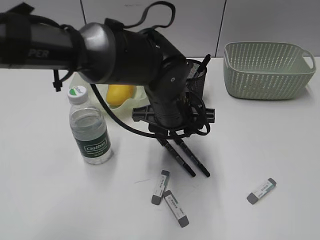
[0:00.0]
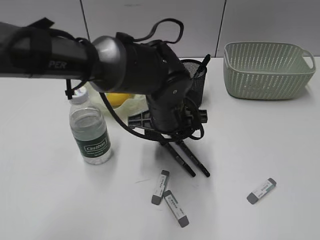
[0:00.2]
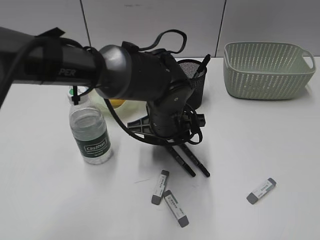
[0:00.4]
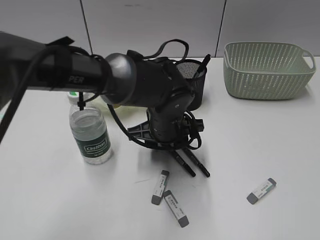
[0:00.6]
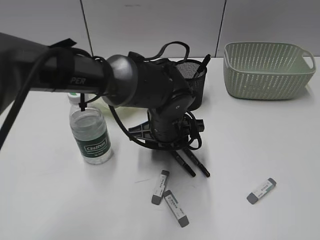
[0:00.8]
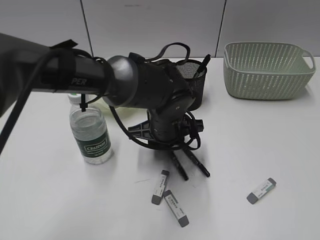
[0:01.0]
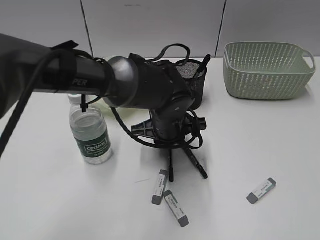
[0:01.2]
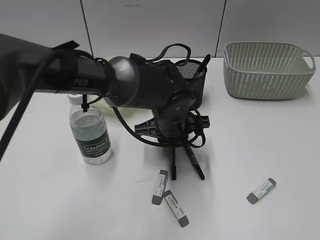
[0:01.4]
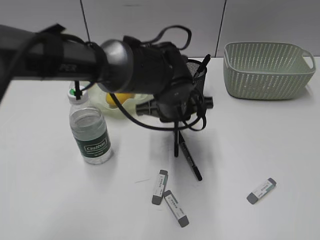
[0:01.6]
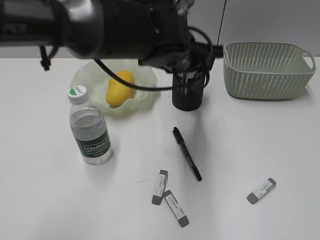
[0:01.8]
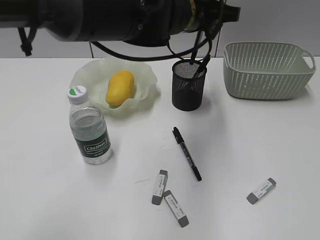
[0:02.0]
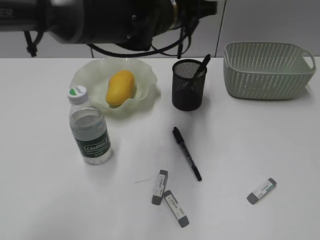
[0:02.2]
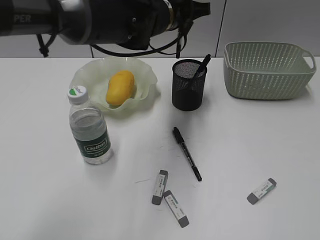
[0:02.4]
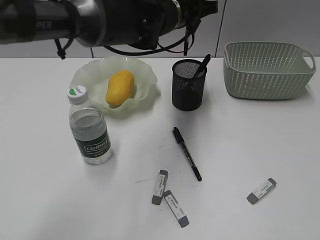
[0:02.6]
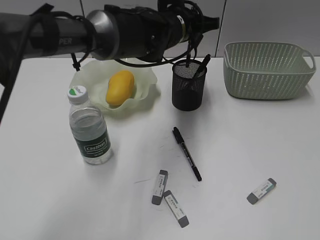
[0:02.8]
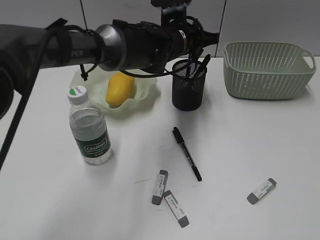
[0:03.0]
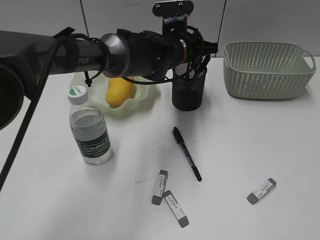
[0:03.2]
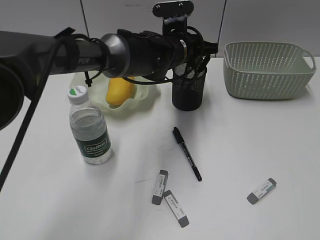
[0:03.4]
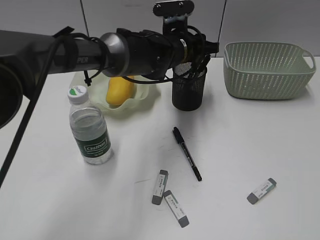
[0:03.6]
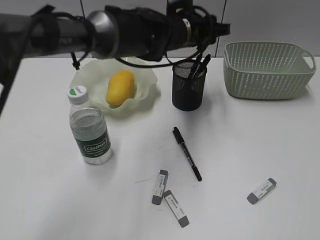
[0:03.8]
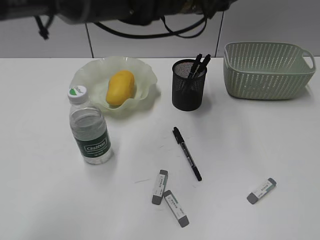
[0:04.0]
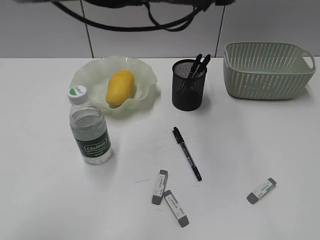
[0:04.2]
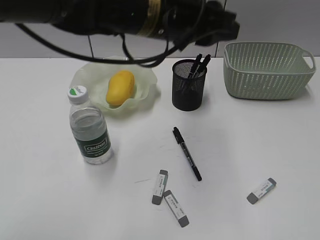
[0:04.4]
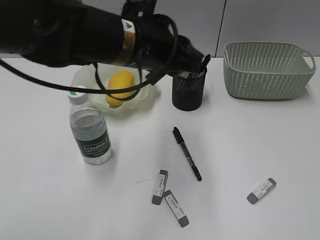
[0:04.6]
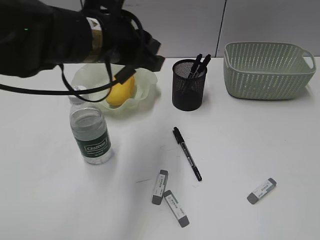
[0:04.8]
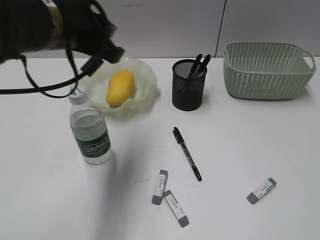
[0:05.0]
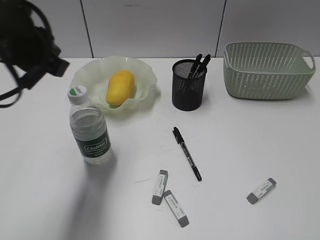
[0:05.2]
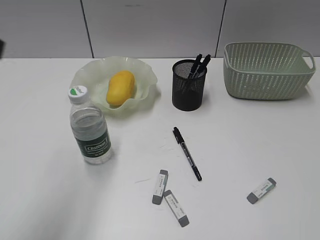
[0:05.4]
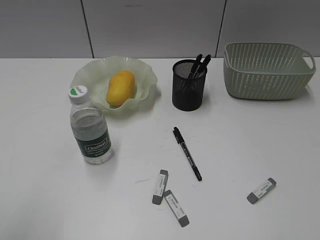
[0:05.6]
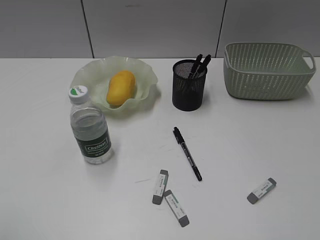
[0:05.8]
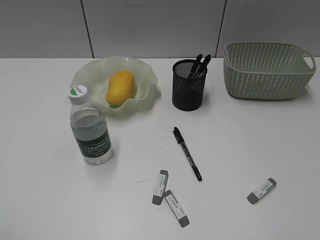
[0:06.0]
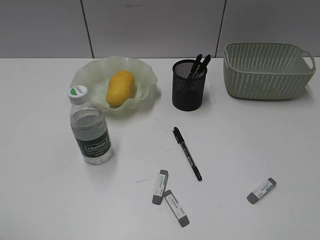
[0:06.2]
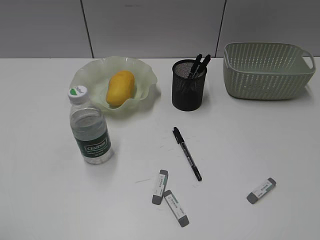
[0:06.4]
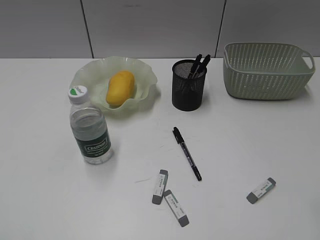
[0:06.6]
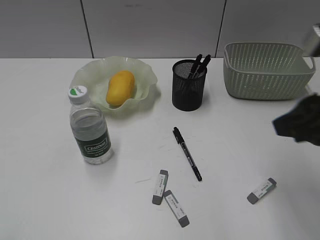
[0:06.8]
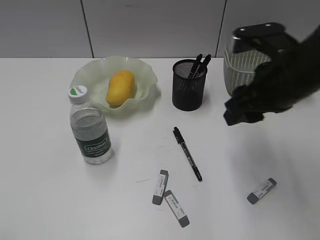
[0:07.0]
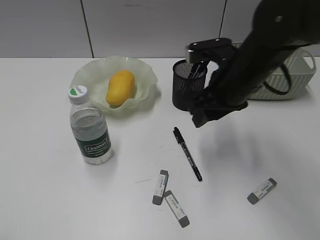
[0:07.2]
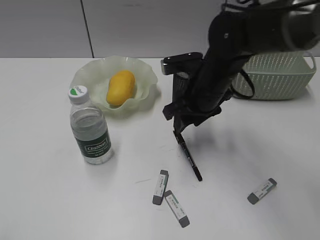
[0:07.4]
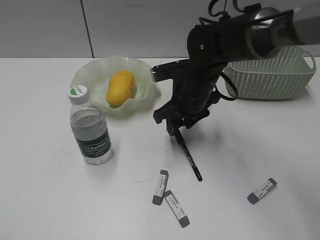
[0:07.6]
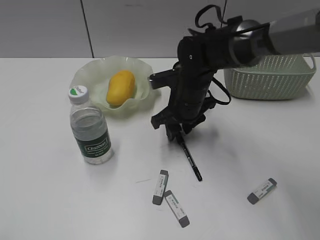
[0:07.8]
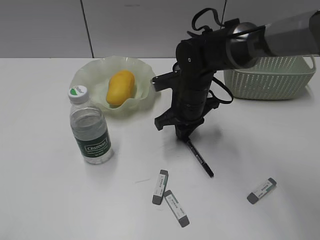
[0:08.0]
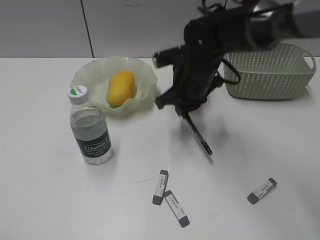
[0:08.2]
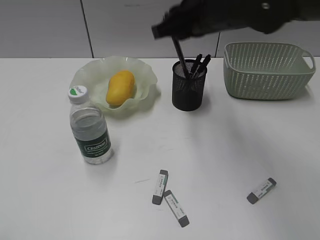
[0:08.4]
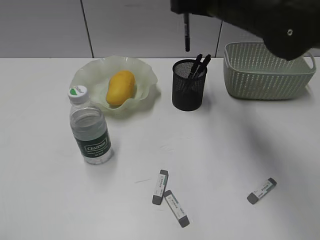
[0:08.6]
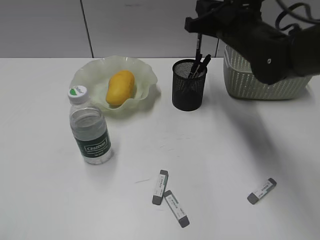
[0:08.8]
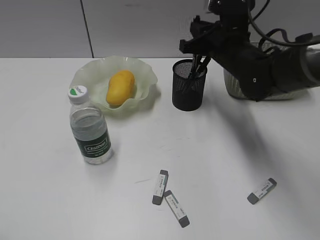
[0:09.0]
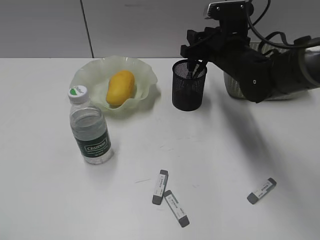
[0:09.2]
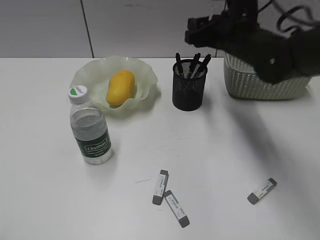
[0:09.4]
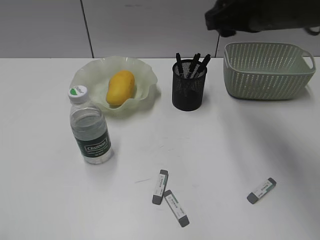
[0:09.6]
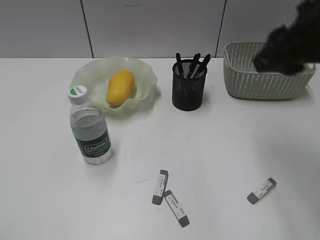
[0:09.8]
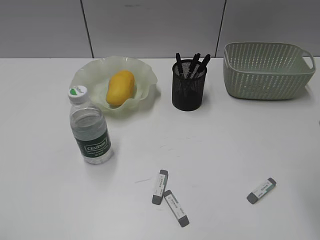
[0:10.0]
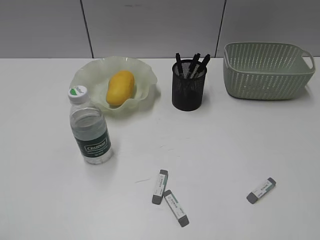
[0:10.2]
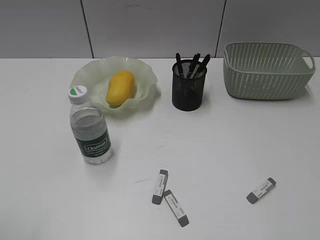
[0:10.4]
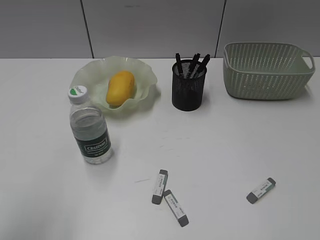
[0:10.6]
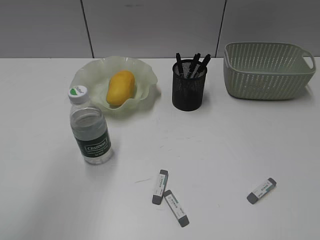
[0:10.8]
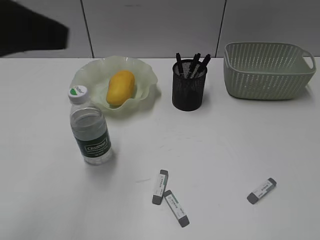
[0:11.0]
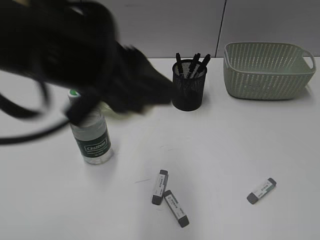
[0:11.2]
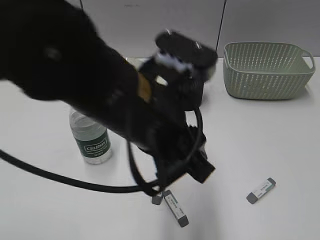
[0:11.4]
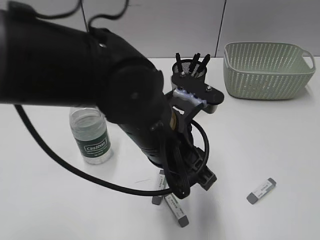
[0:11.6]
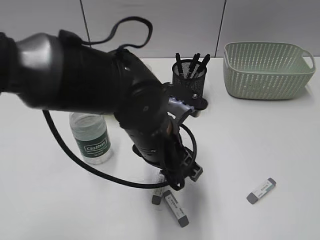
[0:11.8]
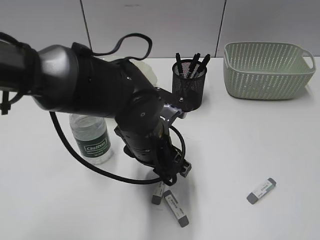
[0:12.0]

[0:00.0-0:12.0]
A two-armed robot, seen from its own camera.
Step, 0:01.4 to 0:03.6: Place the black pen in pen holder with left gripper.
Step, 0:03.8 to 0:08.0: Grasp the black pen with right gripper.
Step, 0:08.2 to 0:09.2: Place the black pen in pen holder with right gripper.
0:00.0 to 0:01.6: The left gripper closes its fingers.
0:01.6 to 0:03.0: The left gripper moves forward, some 10 cm, and reaches approximately 10 cm upward, then returns.
0:03.0 to 0:04.4: The left gripper heads backward and upward, covering some 15 cm.
0:04.4 to 0:06.0: The left gripper heads to the left and backward, covering roughly 40 cm, and opens its fingers.
0:06.0 to 0:07.6: The right gripper moves forward, to the left and downward, roughly 50 cm, and opens up.
0:07.6 to 0:09.0: The right gripper heads to the right, covering about 5 cm, moves some 15 cm upward and comes back, and closes.
0:09.0 to 0:10.4: The right gripper travels backward and to the right by roughly 40 cm, and opens up.
0:10.4 to 0:12.0: The left gripper is displaced to the right, forward and downward by some 40 cm.

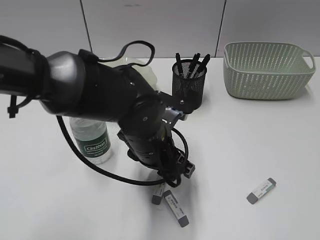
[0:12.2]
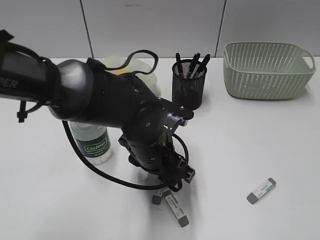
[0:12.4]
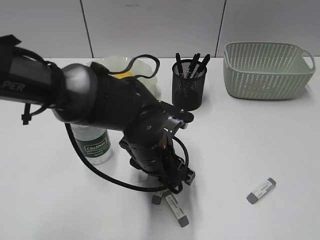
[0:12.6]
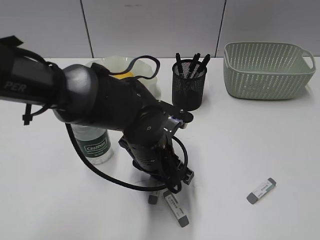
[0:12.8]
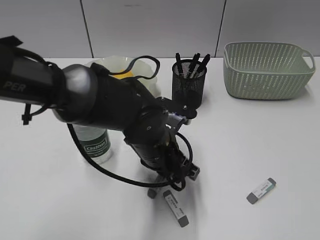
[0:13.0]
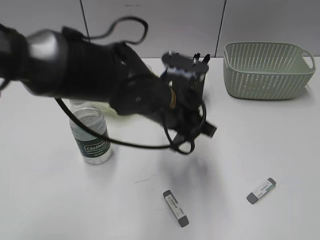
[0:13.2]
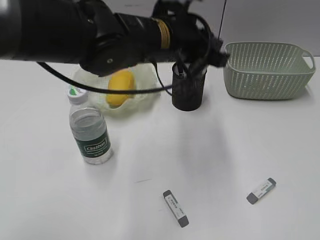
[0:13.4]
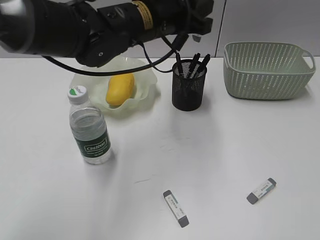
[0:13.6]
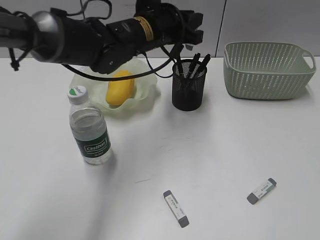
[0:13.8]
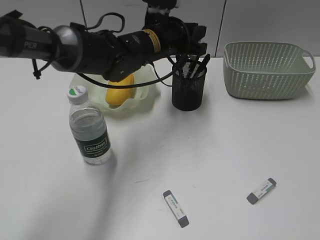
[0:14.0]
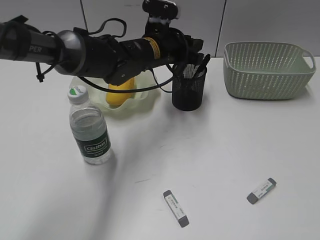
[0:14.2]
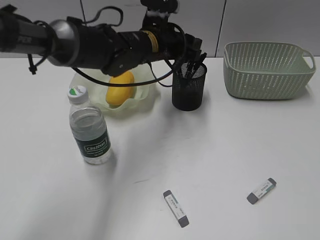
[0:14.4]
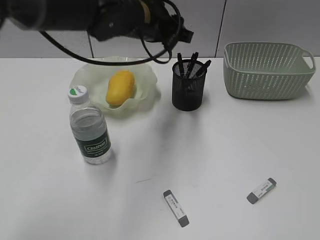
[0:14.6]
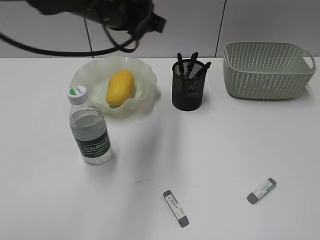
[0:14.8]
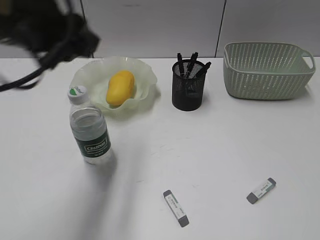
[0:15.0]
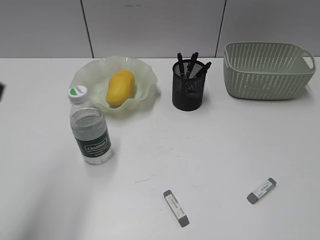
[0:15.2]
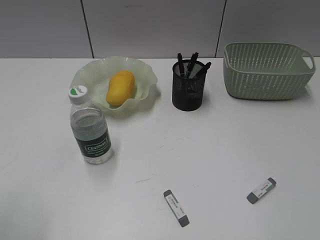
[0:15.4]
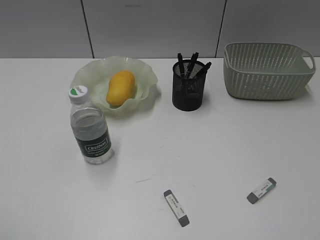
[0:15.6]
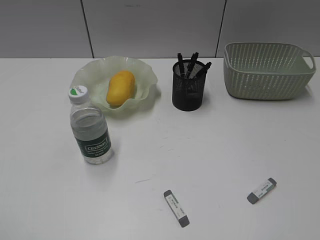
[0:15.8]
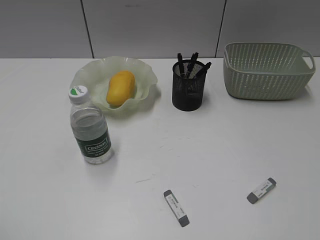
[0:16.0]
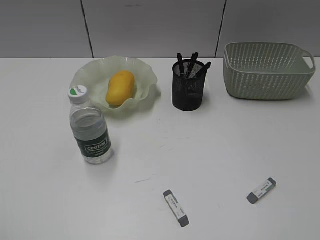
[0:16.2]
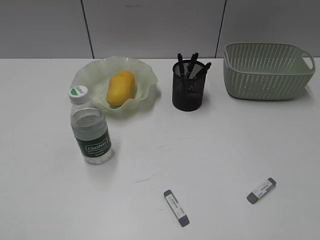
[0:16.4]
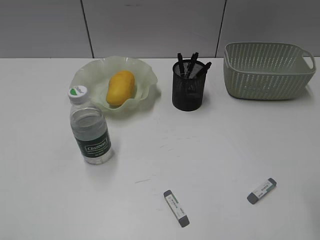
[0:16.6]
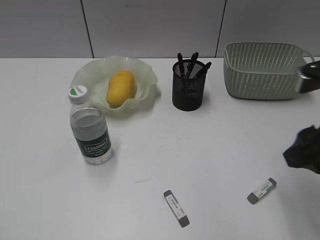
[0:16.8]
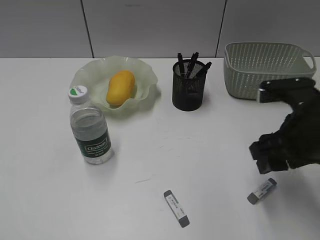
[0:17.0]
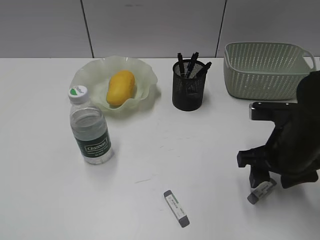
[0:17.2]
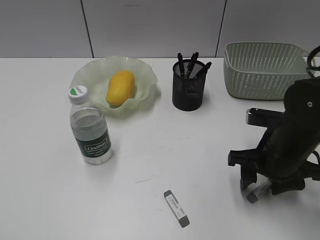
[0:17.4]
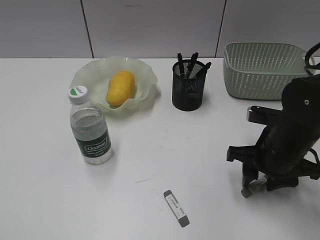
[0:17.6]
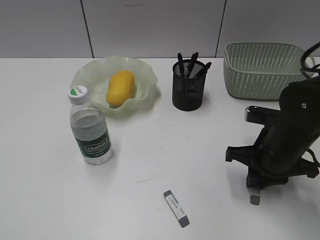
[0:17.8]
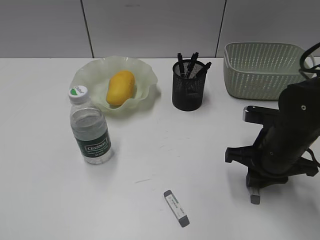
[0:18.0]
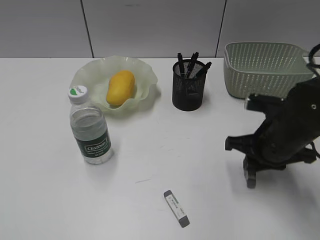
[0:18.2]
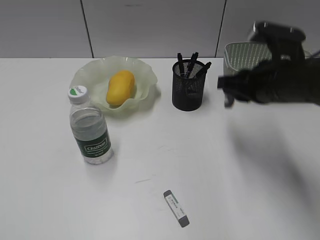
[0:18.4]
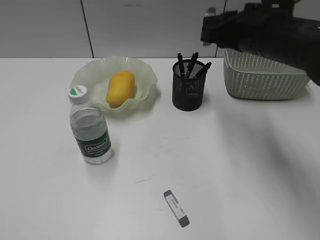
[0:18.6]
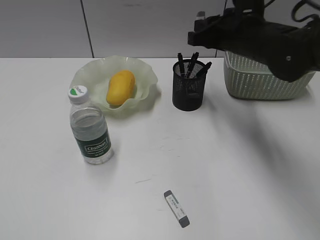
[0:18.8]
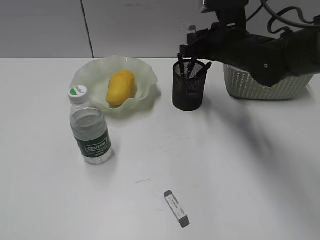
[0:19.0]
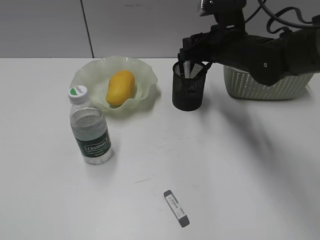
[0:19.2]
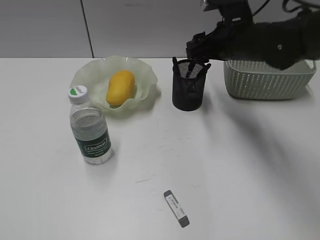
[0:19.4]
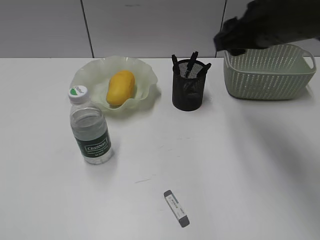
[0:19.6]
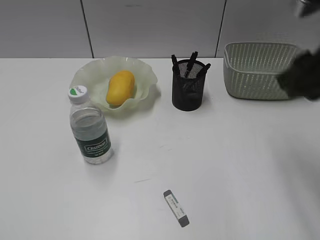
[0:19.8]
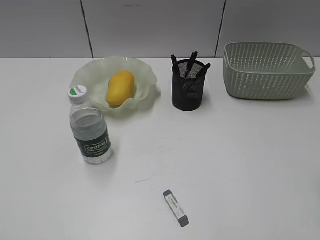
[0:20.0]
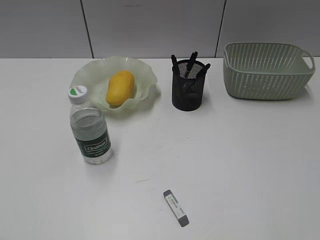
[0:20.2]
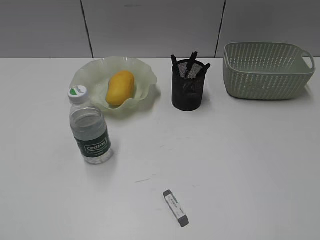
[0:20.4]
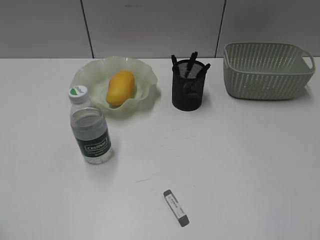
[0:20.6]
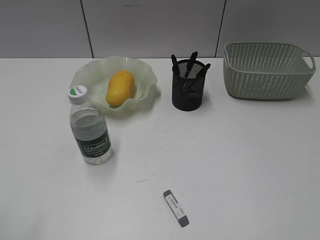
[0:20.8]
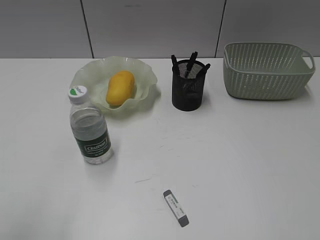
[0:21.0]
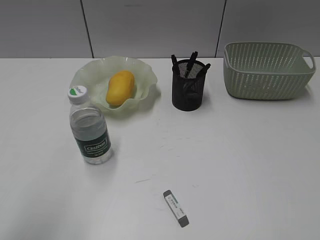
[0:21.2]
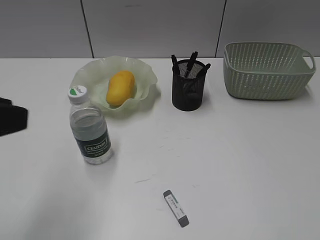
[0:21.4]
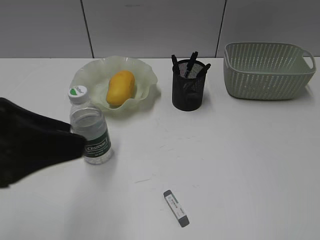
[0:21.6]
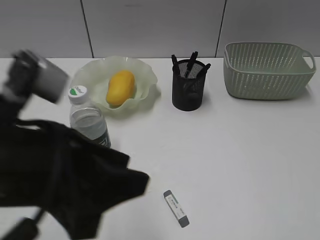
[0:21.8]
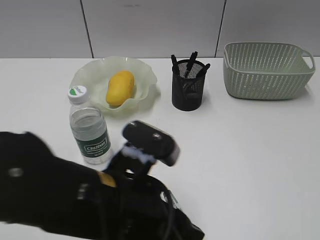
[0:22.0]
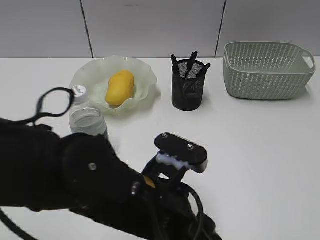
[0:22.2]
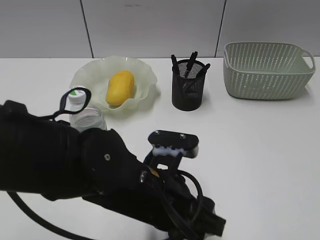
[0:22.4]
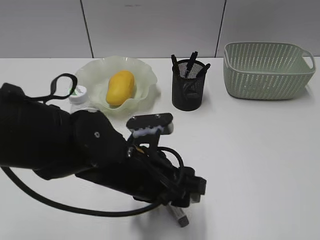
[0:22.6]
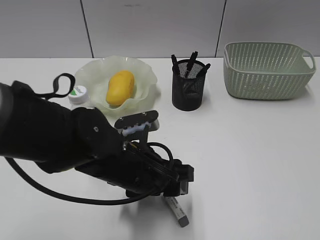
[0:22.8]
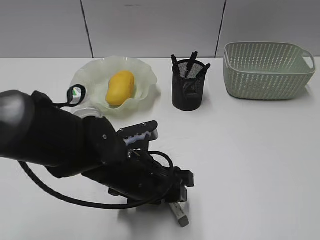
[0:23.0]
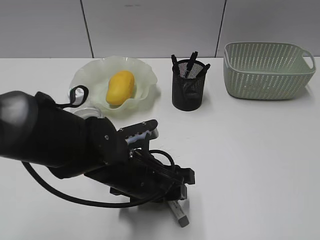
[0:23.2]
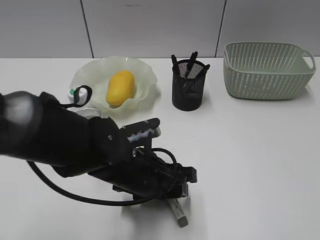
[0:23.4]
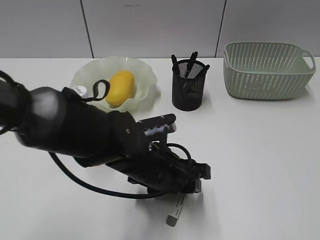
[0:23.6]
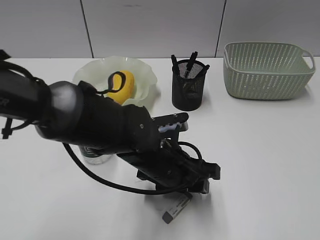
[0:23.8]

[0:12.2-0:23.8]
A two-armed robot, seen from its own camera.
Step, 0:13.0 to 0:14.4: Place the eraser in pen holder with left gripper.
Step, 0:14.6 to 0:18.0: Grasp the eraser with right gripper.
Step, 0:18.2 to 0:19.2: Place the eraser in pen holder with right gripper.
0:12.2 to 0:13.6: The left gripper shifts about 15 cm upward and forward, and closes up.
0:13.6 to 0:15.0: The left gripper goes roughly 20 cm to the left, backward and upward, and opens up.
0:15.0 to 0:16.6: The left gripper moves backward and to the left, roughly 30 cm. Meanwhile the right gripper heads forward and to the left, covering about 15 cm.
0:16.6 to 0:18.0: The right gripper goes roughly 20 cm downward and forward, and opens and closes again.
0:18.0 to 0:19.4: The right gripper heads forward, upward and to the left, covering some 15 cm, and opens.
0:19.4 to 0:21.0: The right gripper goes some 40 cm backward and to the right, while the left gripper is displaced forward and to the right by approximately 10 cm.
0:21.0 to 0:22.4: The left gripper is displaced to the right, downward and forward by some 35 cm.
0:22.4 to 0:23.8: The left gripper heads forward, covering approximately 5 cm.
